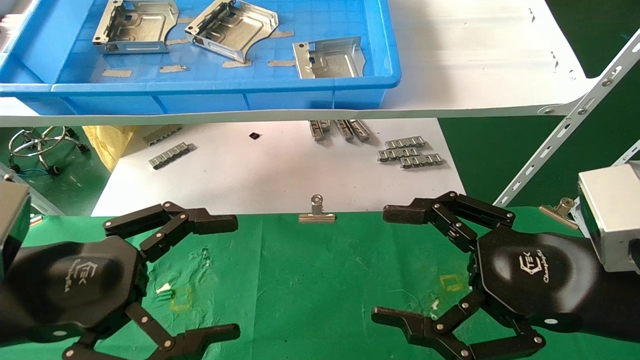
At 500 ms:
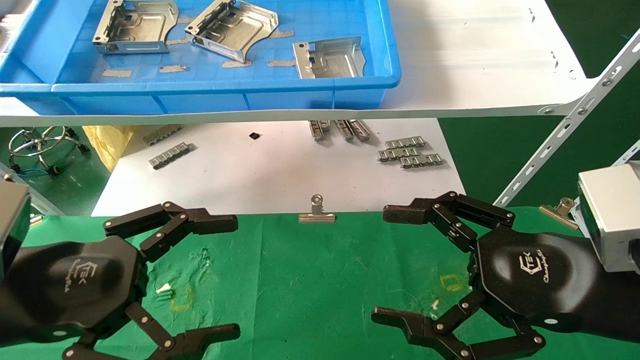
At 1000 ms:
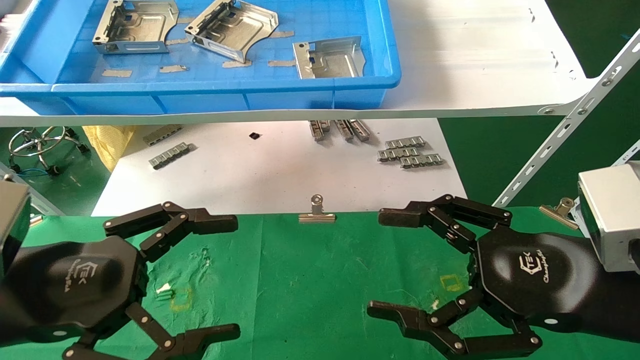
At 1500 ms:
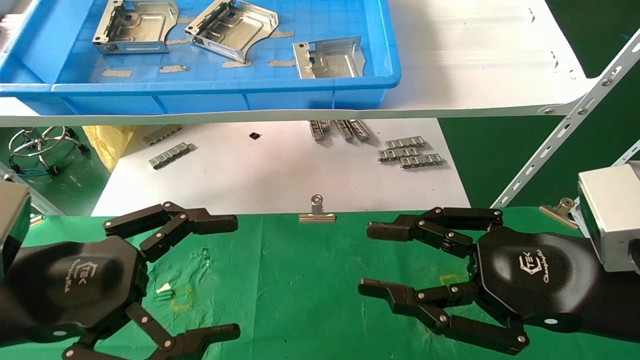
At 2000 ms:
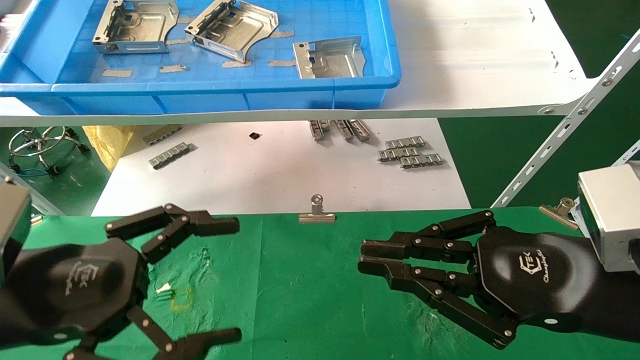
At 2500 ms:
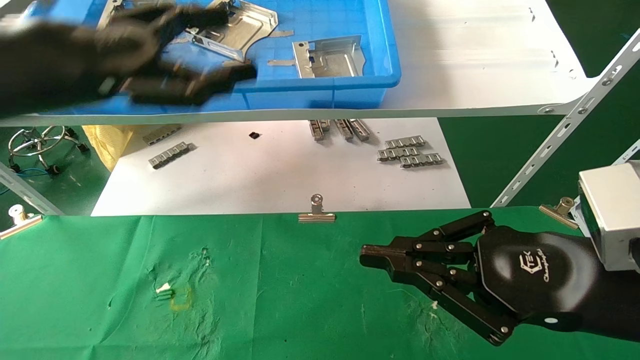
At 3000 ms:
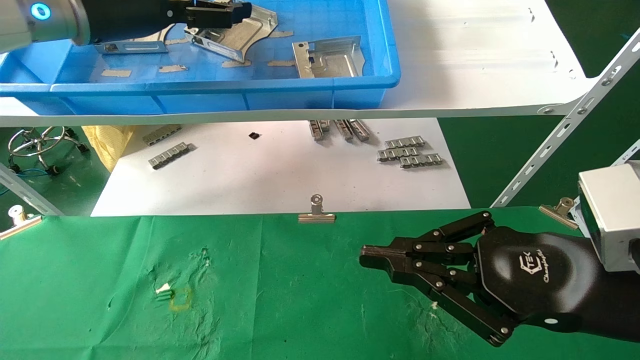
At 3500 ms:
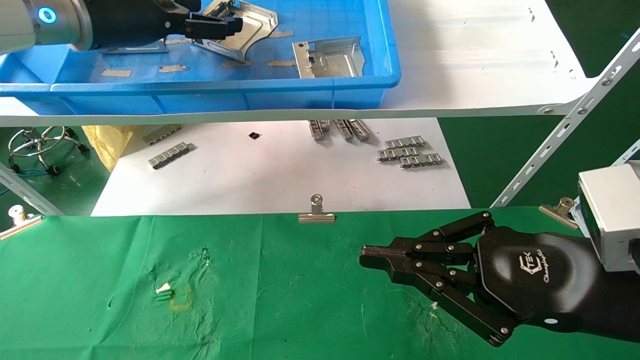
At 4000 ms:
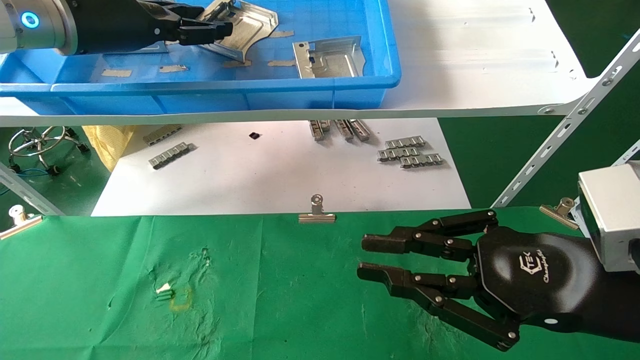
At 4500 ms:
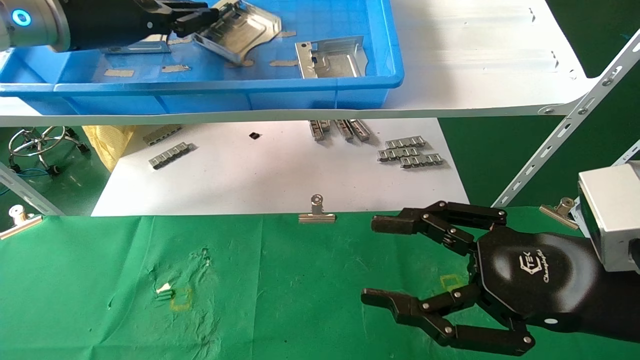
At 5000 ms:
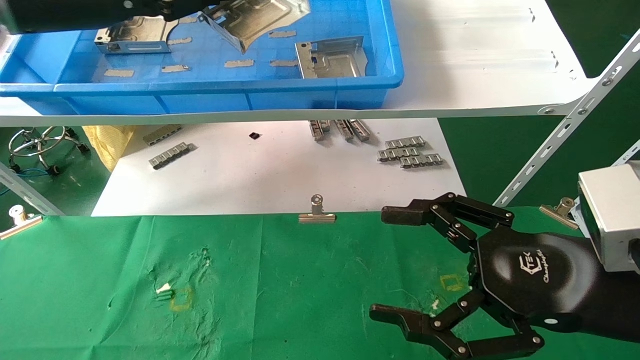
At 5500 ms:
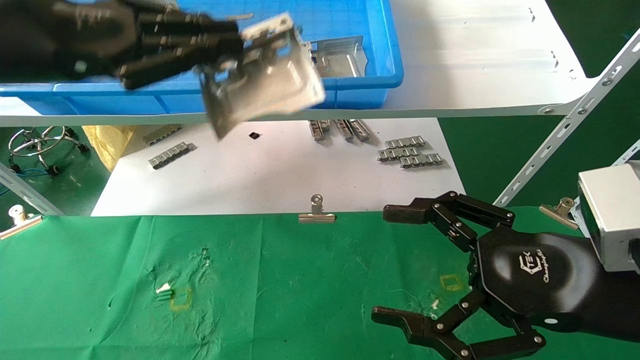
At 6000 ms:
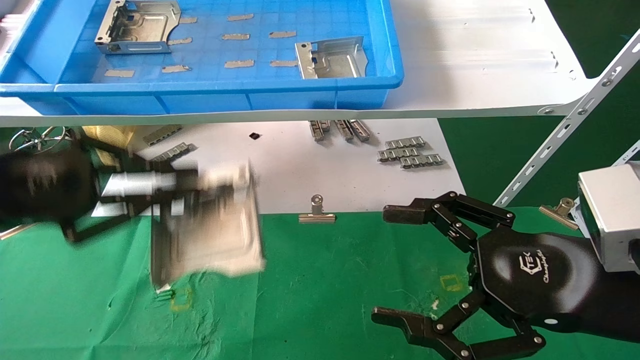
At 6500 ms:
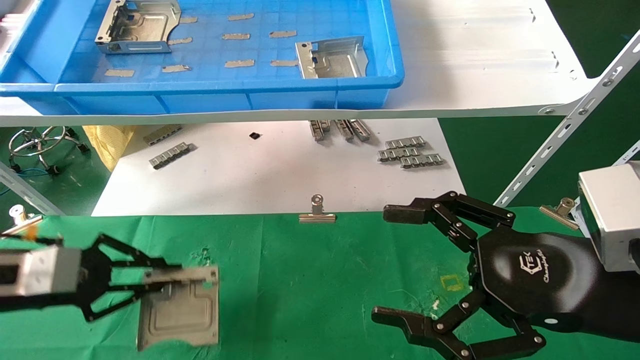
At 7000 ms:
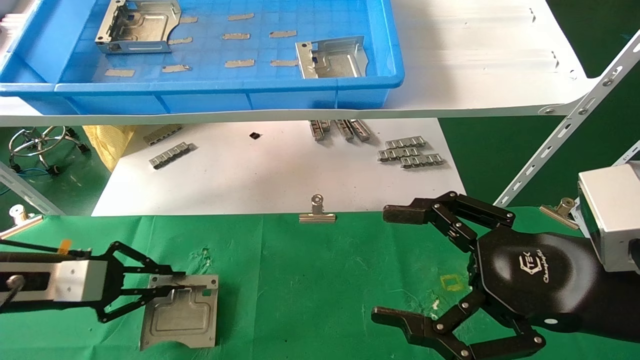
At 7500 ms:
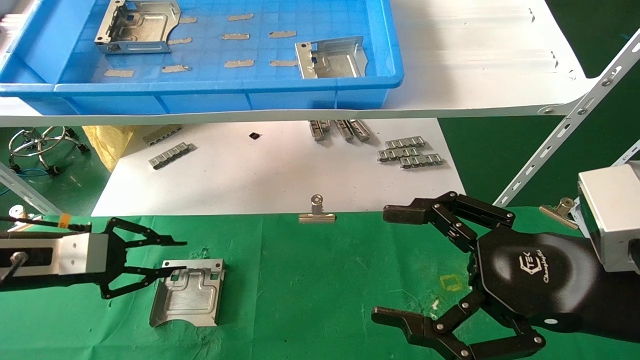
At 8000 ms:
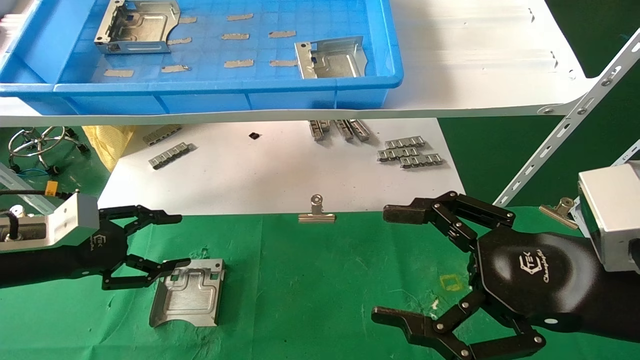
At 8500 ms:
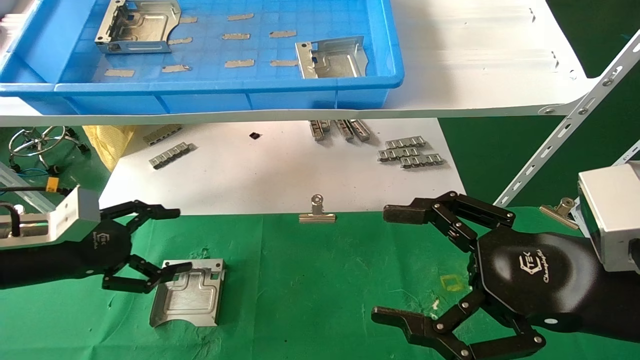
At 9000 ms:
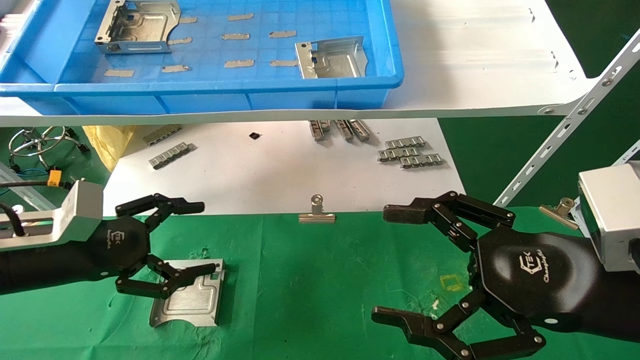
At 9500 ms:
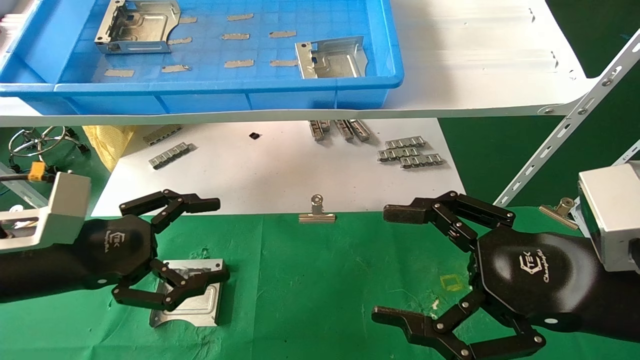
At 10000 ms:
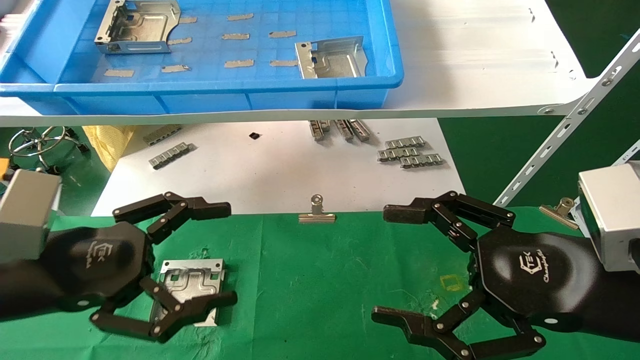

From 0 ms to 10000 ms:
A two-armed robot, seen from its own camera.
Task of the whole recording: use the mechanical arm to pick up the parts and place them on the table.
Step, from 1500 ms to 4500 ms: Pick up the hard drive bracket from the feeding area.
Step, from 5000 ms to 7500 ms: Place the hard drive bracket into the box.
From 0 ms to 2000 ms: The right gripper closes its fingers.
From 2000 ms to 4000 ms: The left gripper moves forward and upward, some 30 cm, and closes.
From 4000 ms to 6000 ms: The left gripper travels backward, downward and to the left by some 20 cm, and closes up; the right gripper opens up.
From 6000 ms to 8000 ms: The left gripper is displaced downward and forward by about 15 cm, and opens.
From 8000 ms to 10000 ms: The left gripper heads backward and to the right, covering roughly 15 cm, and opens.

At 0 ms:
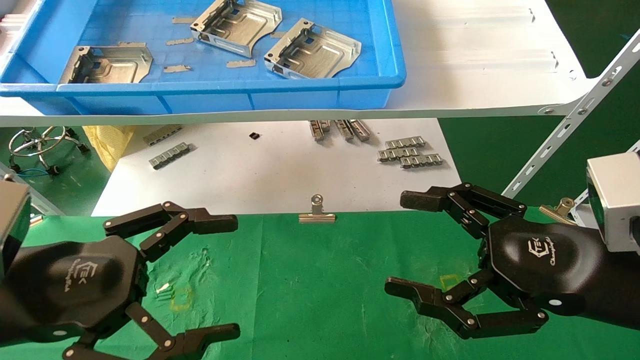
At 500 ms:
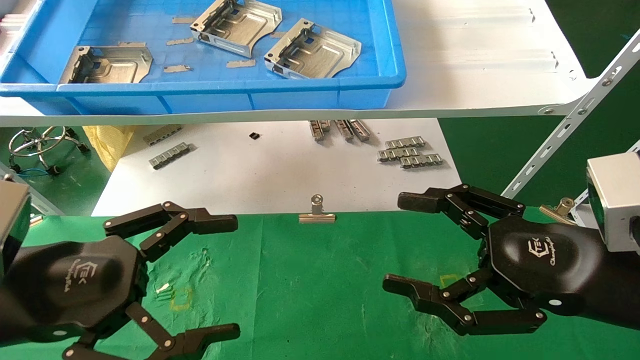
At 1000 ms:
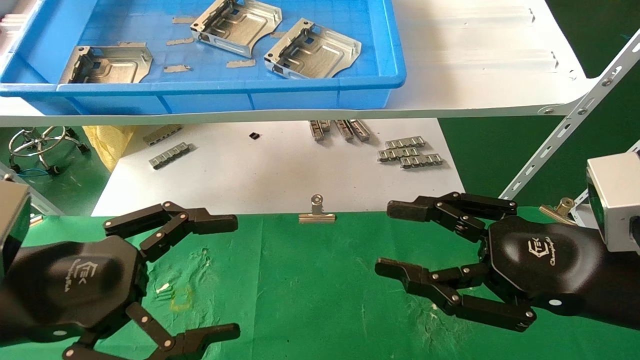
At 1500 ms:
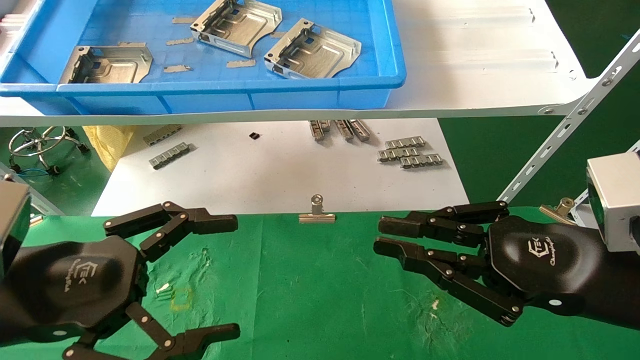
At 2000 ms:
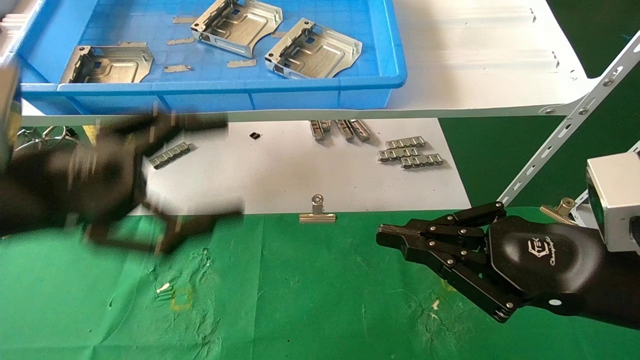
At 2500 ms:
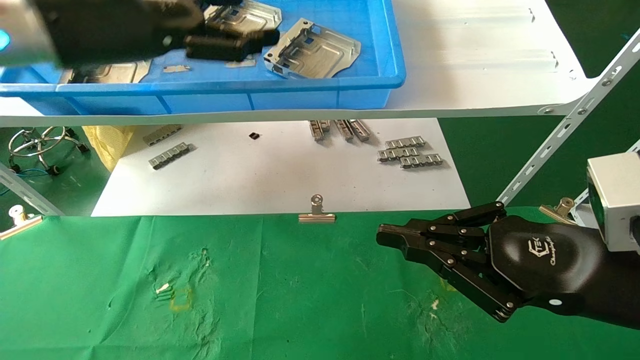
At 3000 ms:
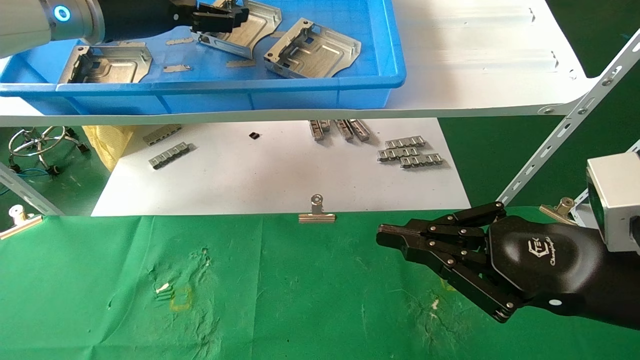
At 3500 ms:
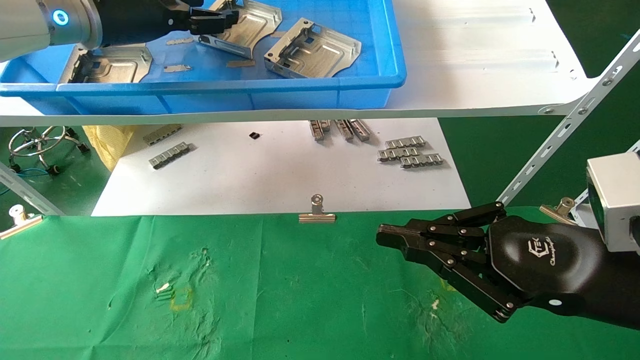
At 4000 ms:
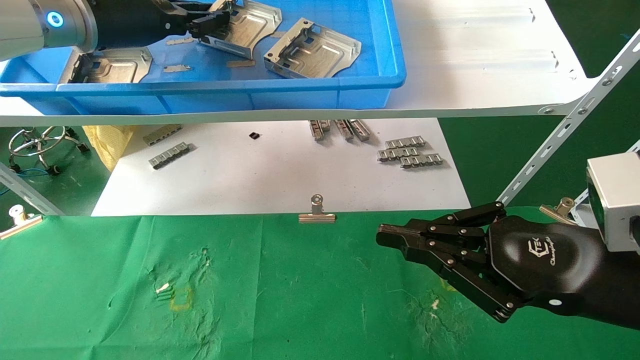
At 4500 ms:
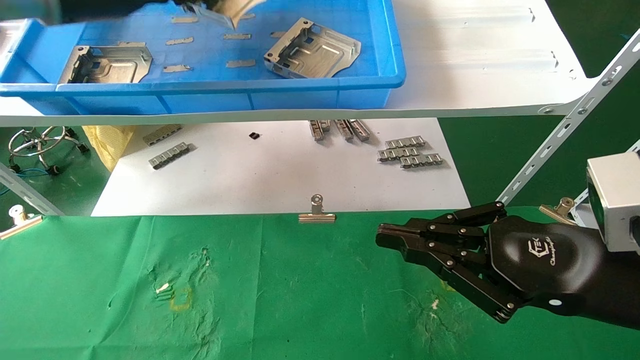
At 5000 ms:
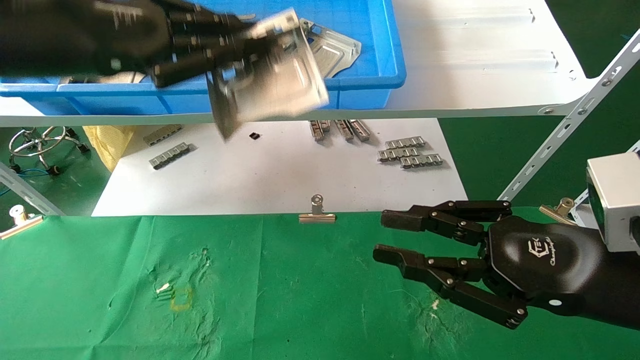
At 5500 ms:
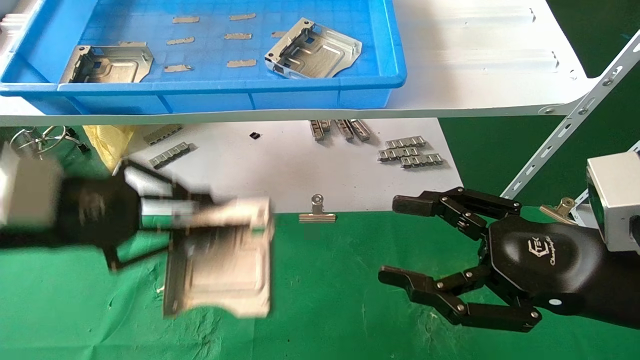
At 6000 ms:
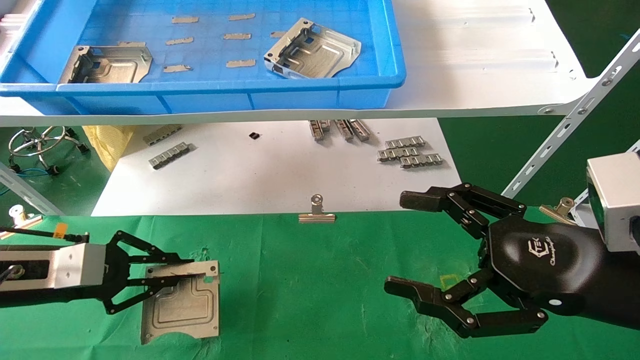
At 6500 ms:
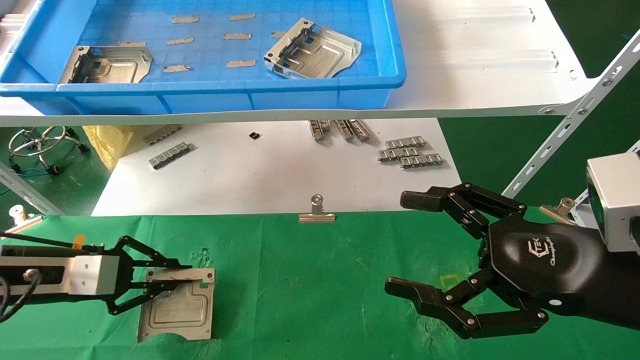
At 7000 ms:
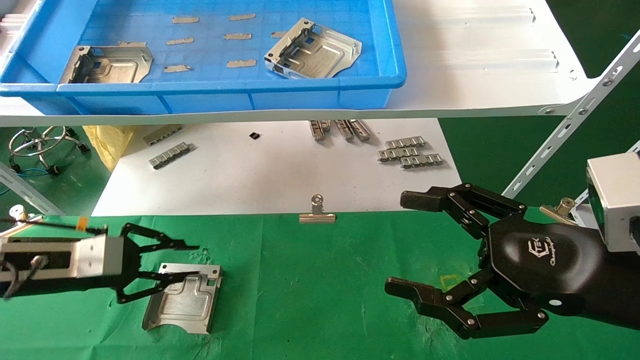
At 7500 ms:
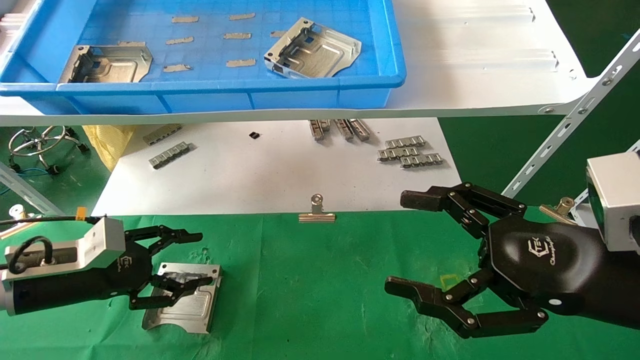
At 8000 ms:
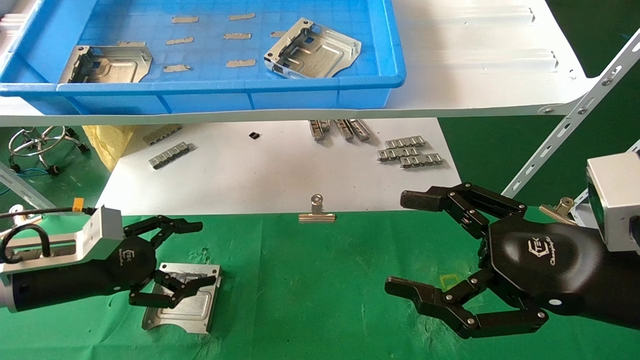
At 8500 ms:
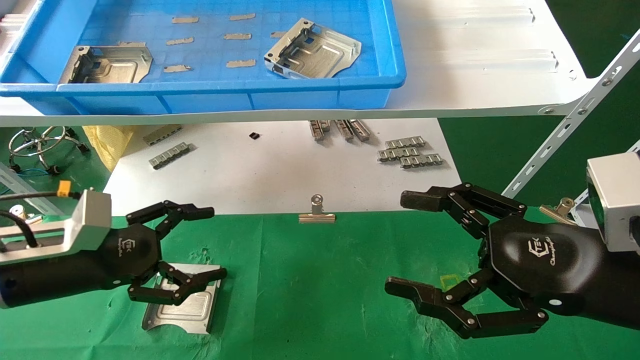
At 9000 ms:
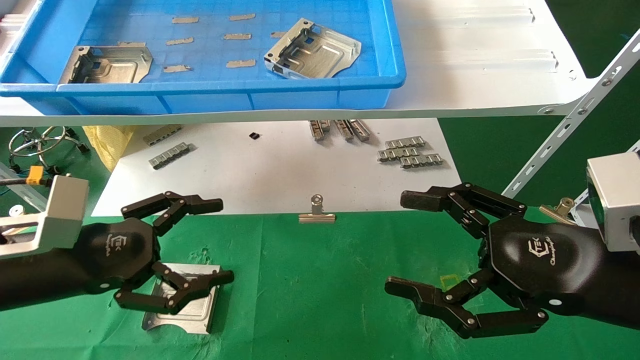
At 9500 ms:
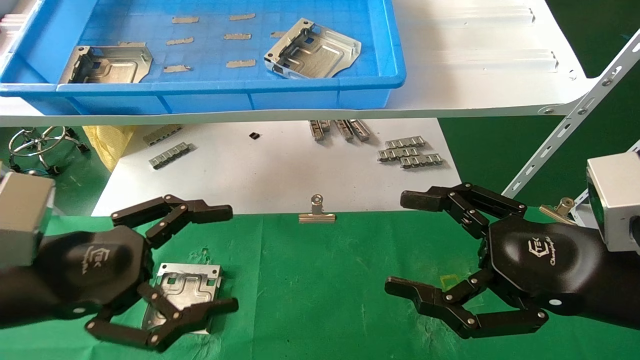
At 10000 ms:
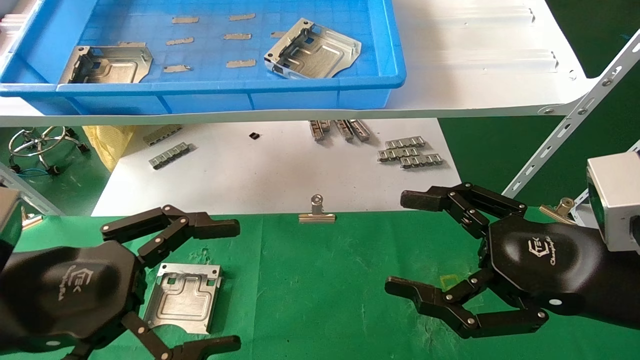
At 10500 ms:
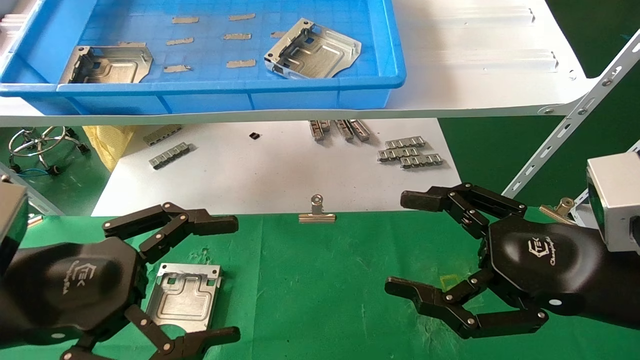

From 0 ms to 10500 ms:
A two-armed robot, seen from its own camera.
Task of the whole recording: use the mechanical arm to pick up the parts and place them on the table.
Step, from 2000 ms to 4000 ms: Pick up the hard drive bracket from the feeding area.
Step, from 4500 ms to 6500 ms: Place the hard drive bracket into the box.
From 0 ms to 2000 ms: The right gripper closes up, while the left gripper is displaced upward by about 10 cm.
From 2000 ms to 4000 ms: The left gripper moves forward and upward, roughly 25 cm, and closes.
From 4000 ms to 6500 ms: The right gripper opens up, while the left gripper moves downward and to the left, roughly 30 cm.
From 6500 ms to 8500 ms: The left gripper shifts about 5 cm to the right, and opens its fingers.
From 8500 ms to 10500 ms: The left gripper goes some 15 cm backward, upward and to the right.
